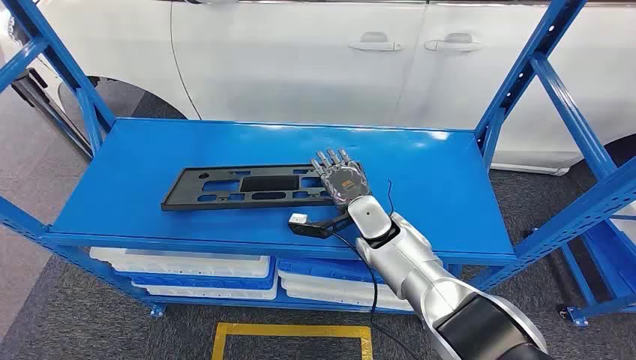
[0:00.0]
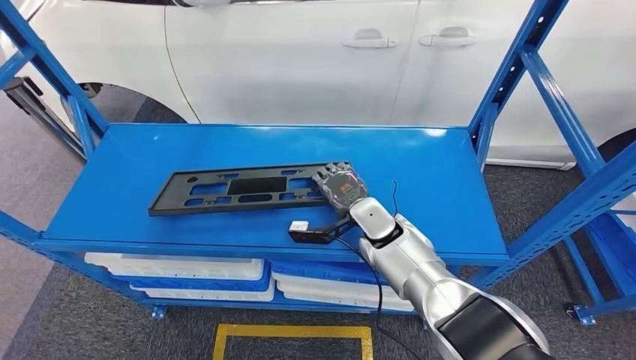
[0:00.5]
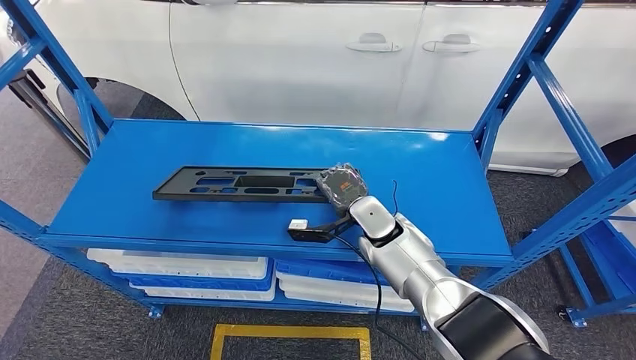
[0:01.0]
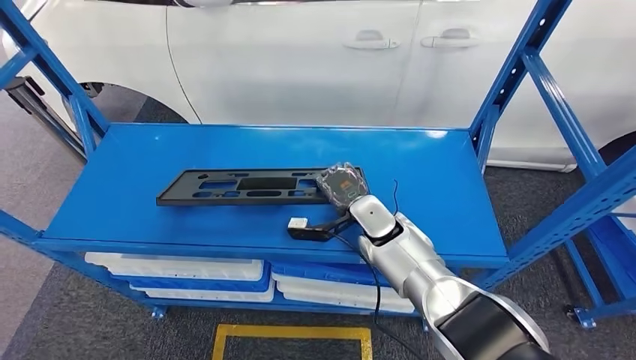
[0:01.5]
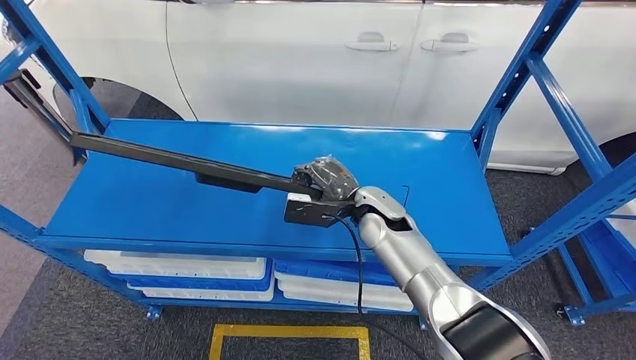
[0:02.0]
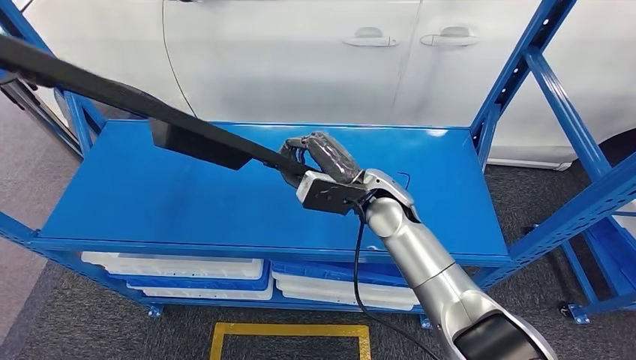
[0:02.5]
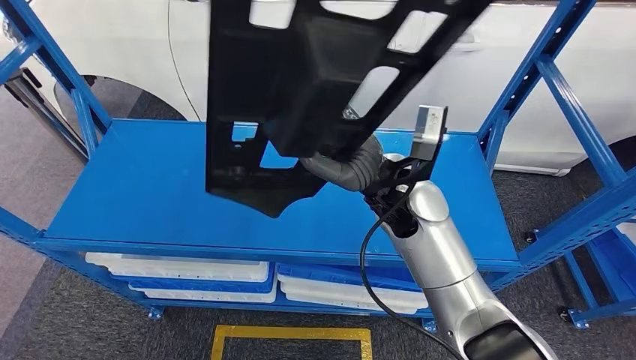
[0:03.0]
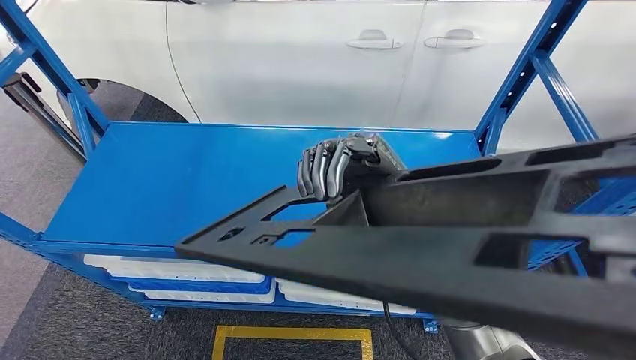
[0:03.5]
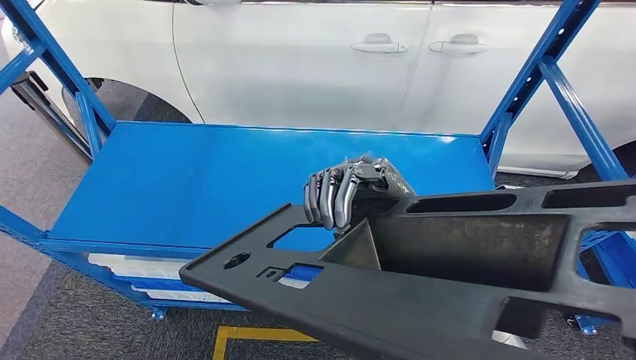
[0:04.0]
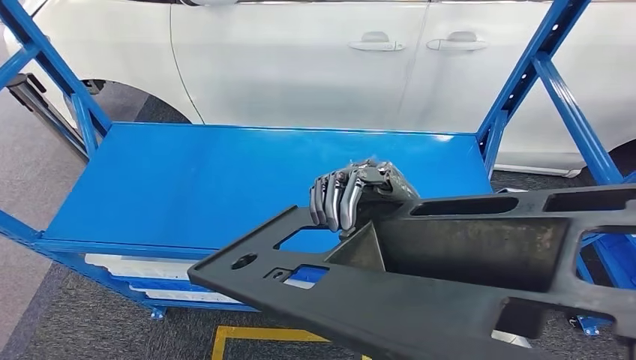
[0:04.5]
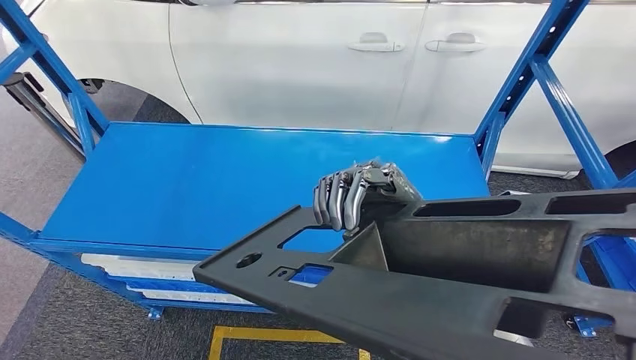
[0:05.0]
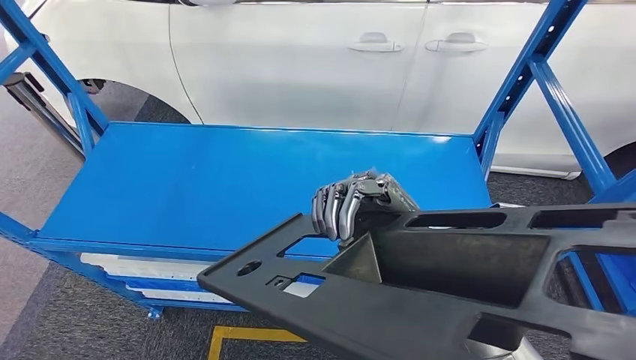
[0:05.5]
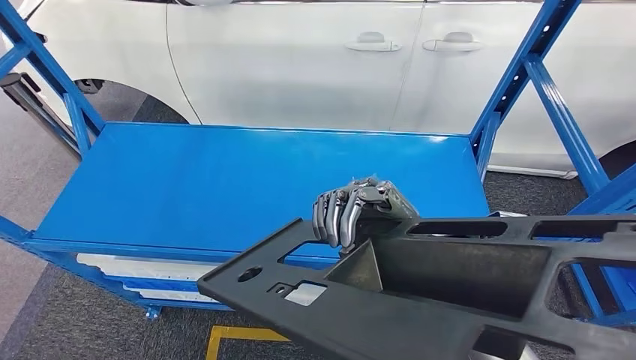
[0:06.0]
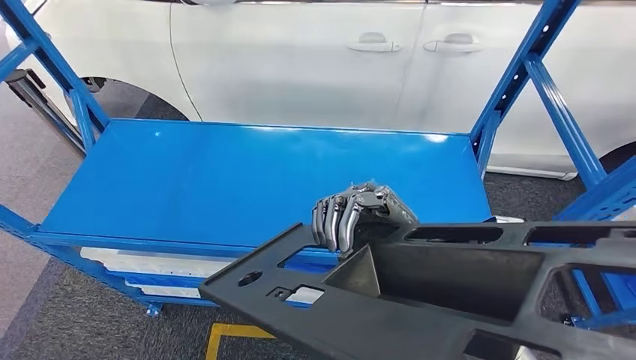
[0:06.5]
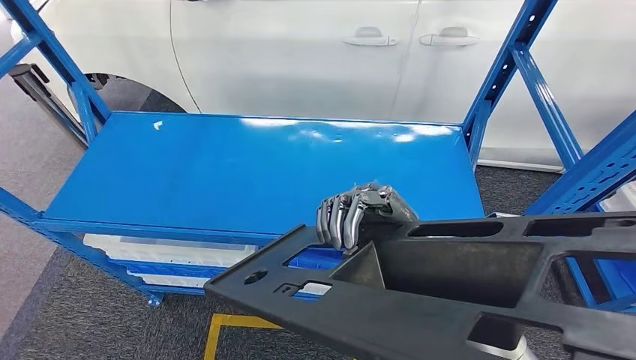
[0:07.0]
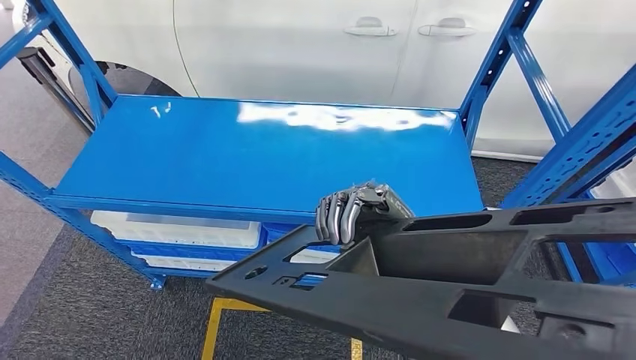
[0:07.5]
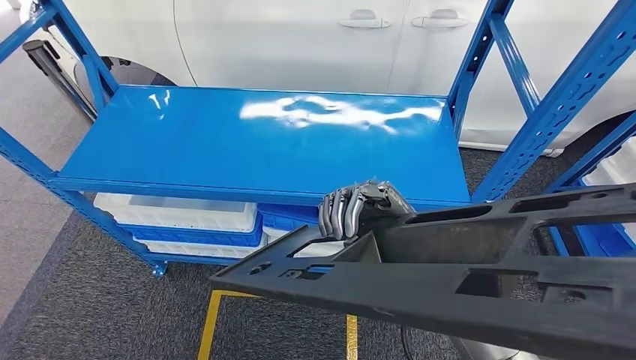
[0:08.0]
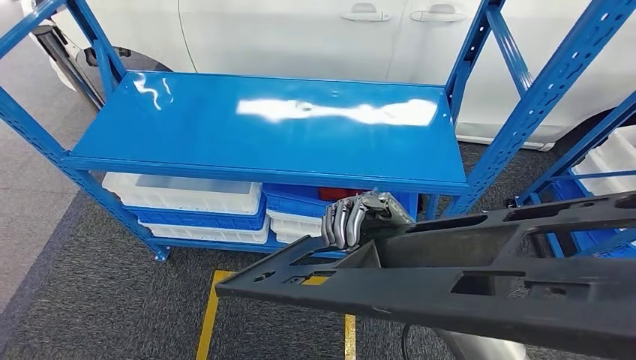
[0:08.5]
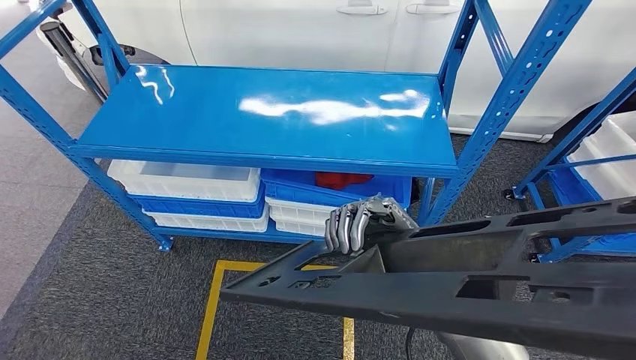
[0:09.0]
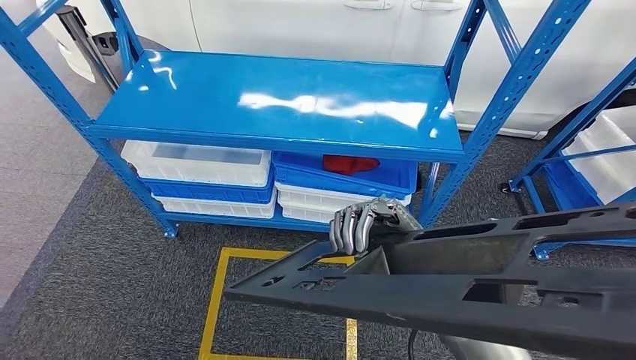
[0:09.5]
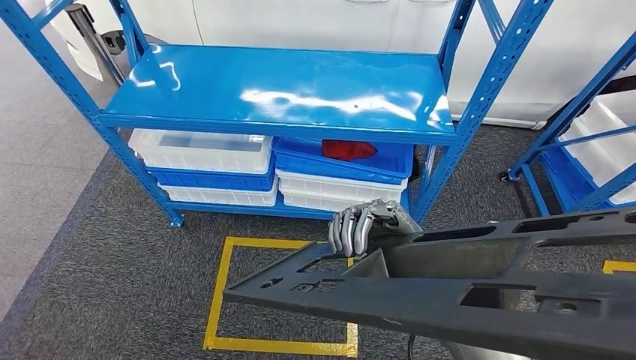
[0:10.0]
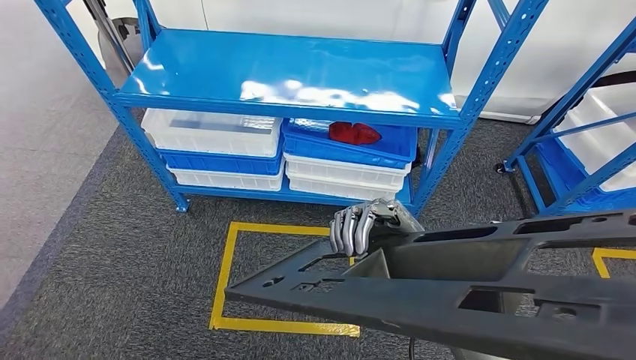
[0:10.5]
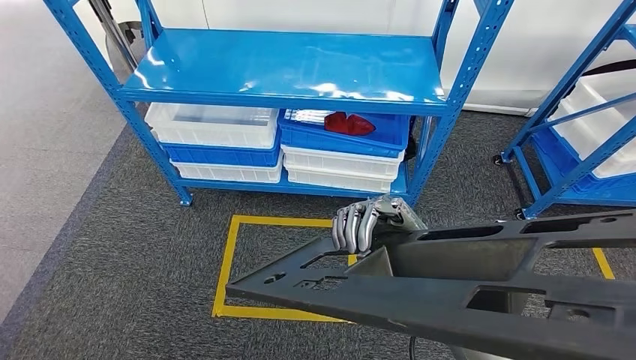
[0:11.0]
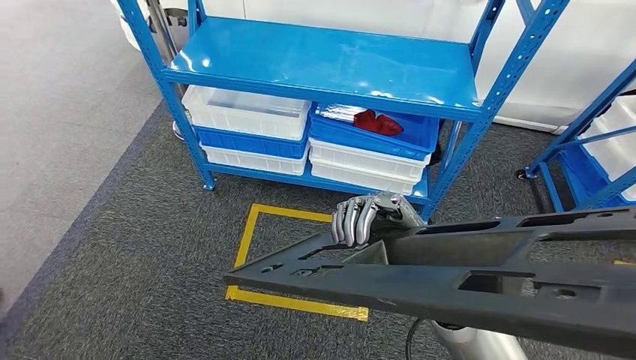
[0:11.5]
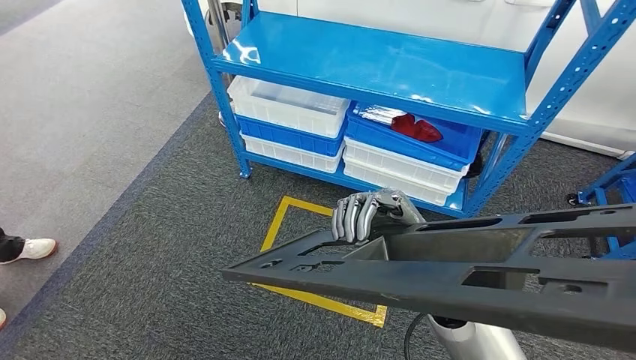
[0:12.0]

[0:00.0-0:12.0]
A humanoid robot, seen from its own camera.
Step, 0:00.0 to 0:04.5: Pick up the large material from the shelf.

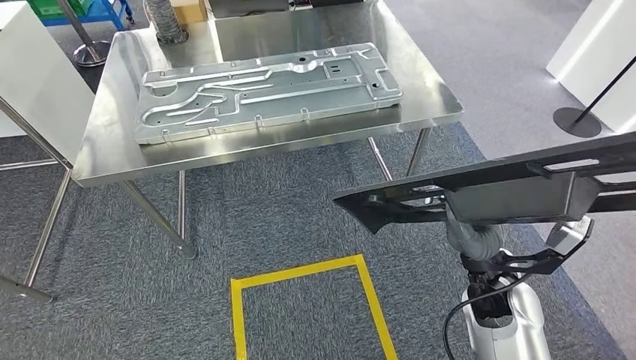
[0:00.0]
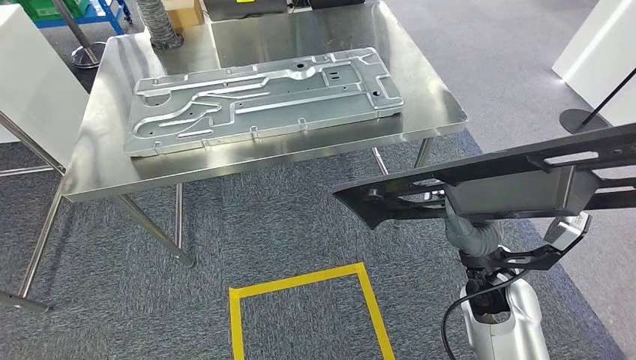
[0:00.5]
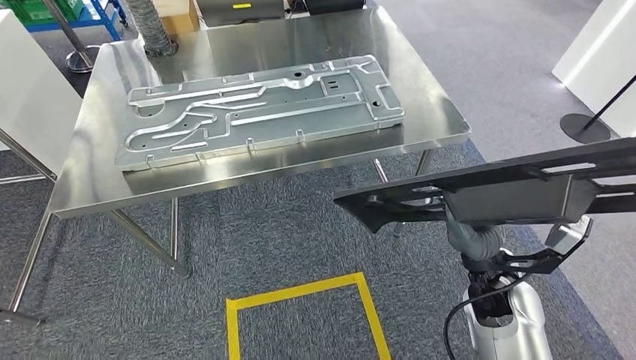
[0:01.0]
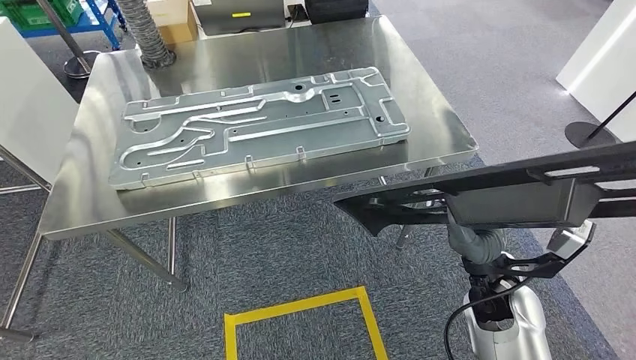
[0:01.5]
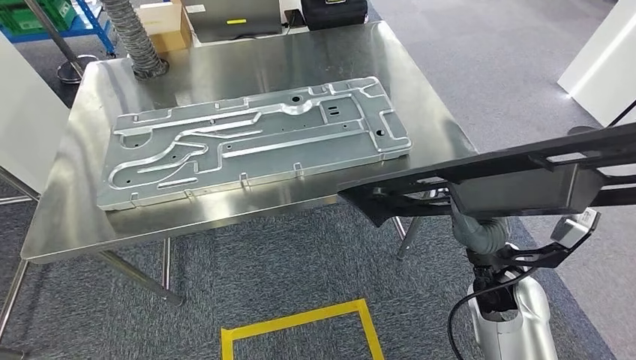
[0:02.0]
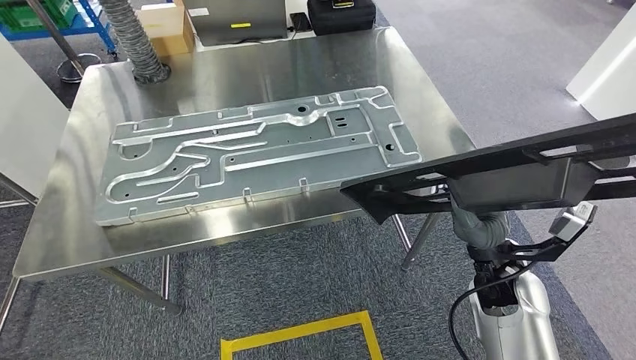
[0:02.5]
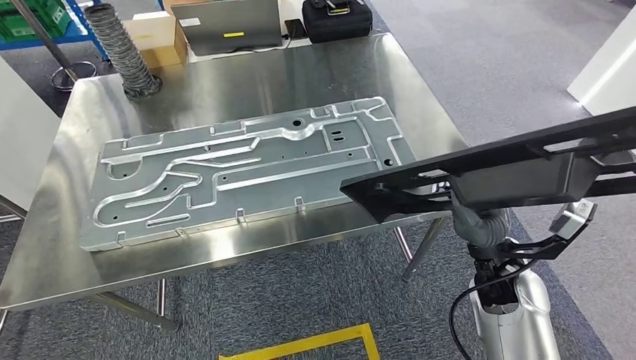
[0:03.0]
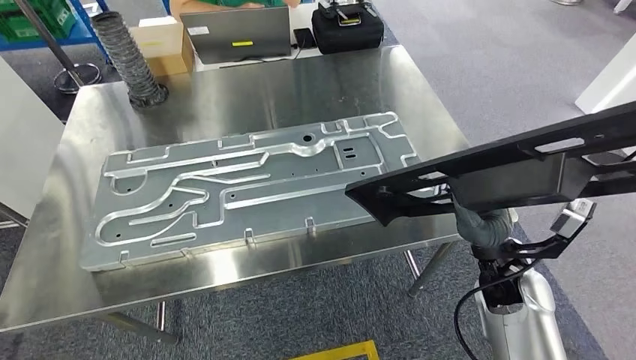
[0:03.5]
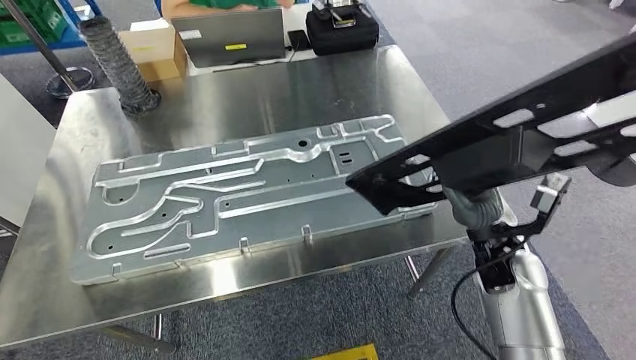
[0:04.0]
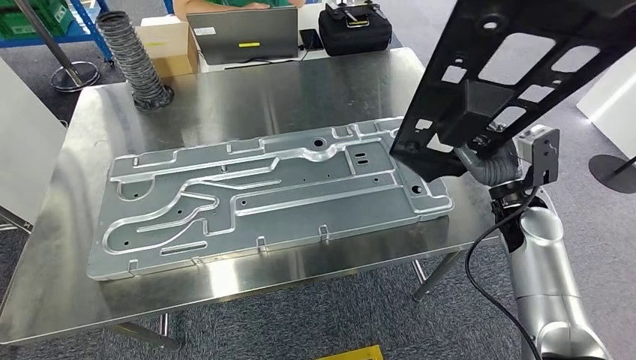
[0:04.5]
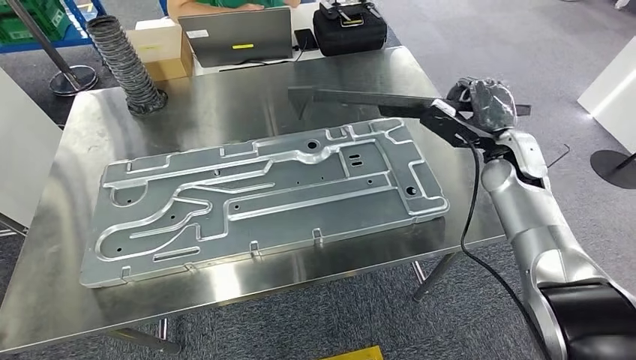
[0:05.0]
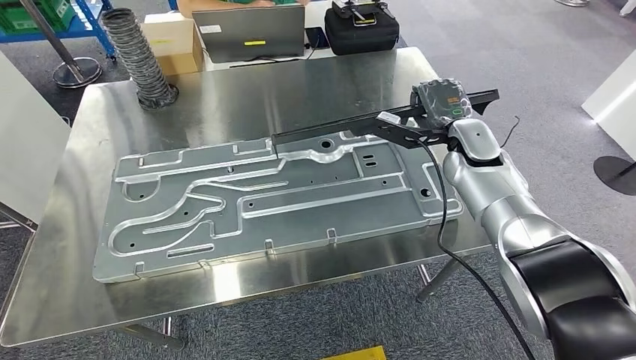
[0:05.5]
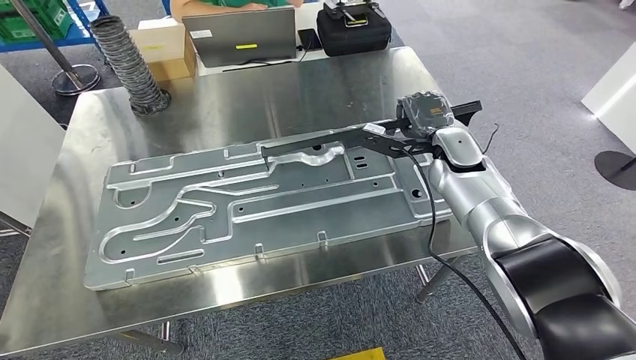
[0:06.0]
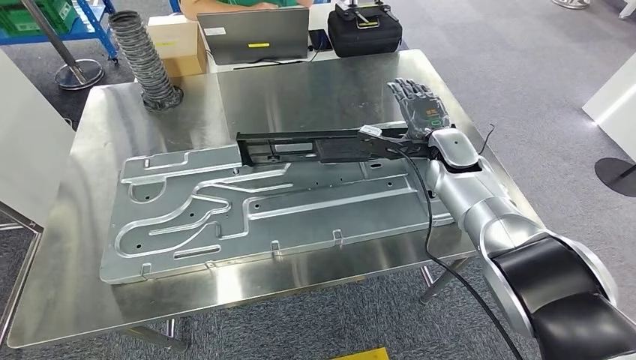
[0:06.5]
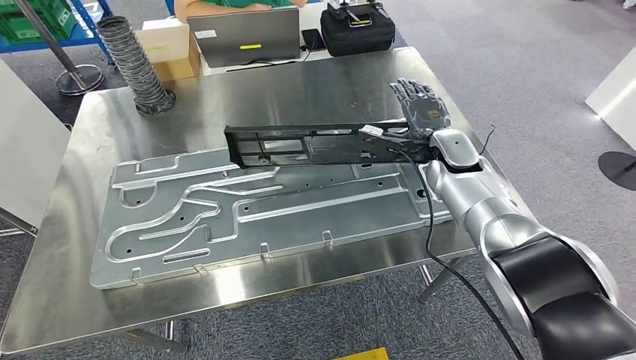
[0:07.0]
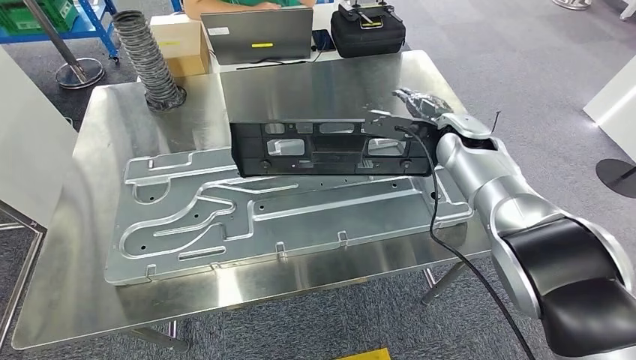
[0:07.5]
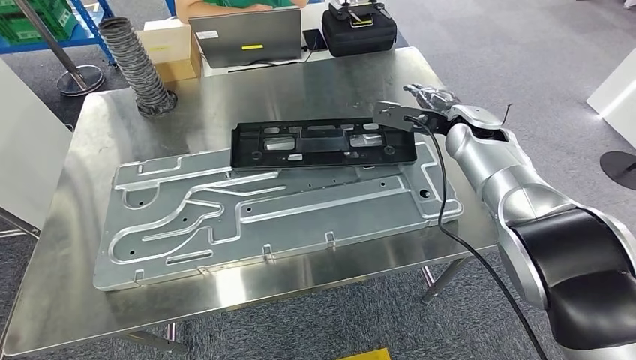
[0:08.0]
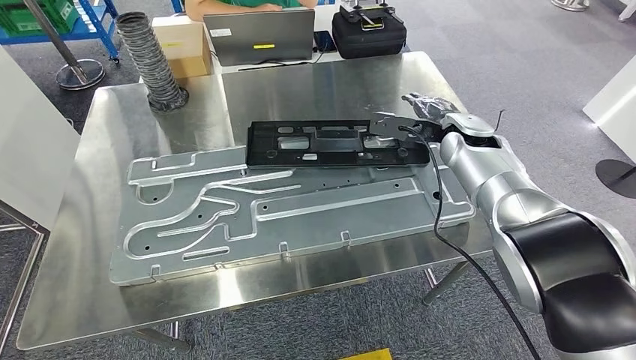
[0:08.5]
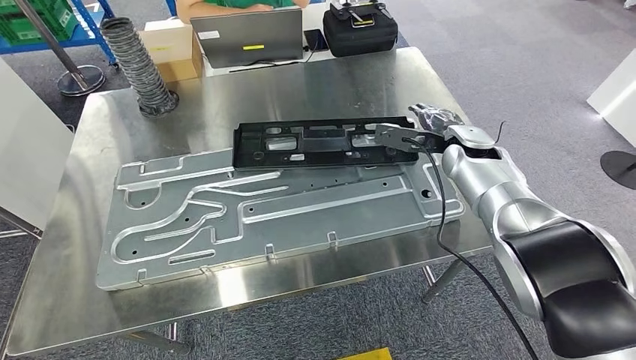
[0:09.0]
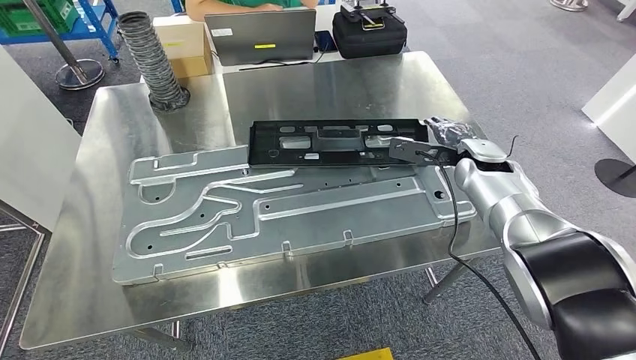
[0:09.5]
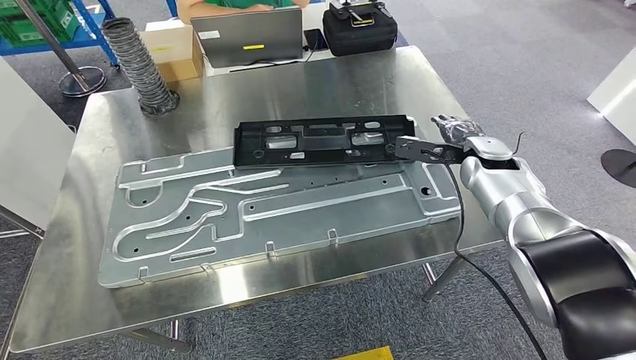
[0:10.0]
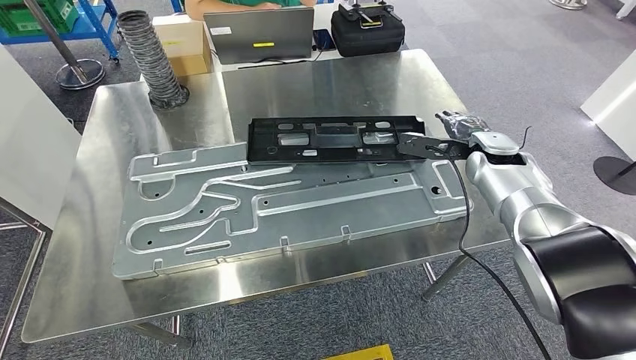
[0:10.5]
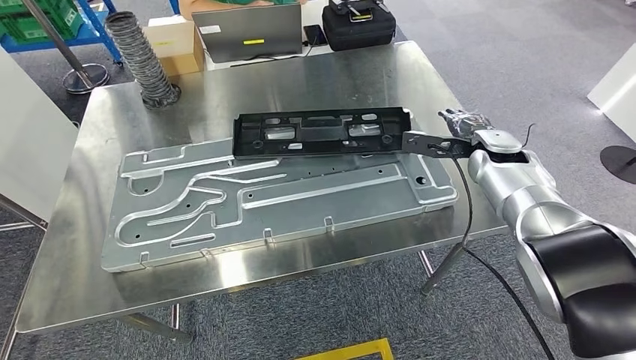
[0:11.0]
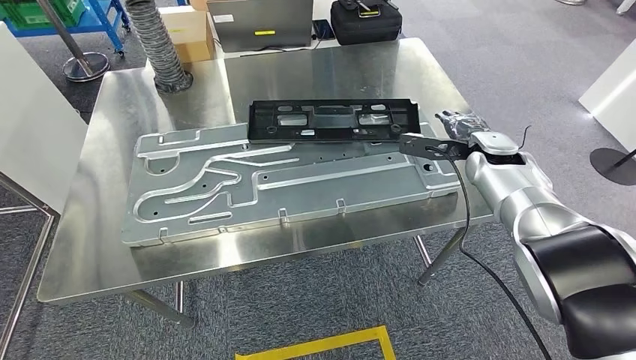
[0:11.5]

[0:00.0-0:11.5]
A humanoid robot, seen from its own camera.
Step, 0:03.5 to 0:08.0: Insert the large material into the corresponding hole on the workbench.
0:07.5 to 0:09.5: The right hand ends up approximately 5 cm from where it was.
